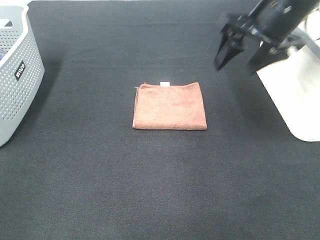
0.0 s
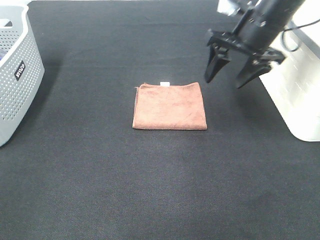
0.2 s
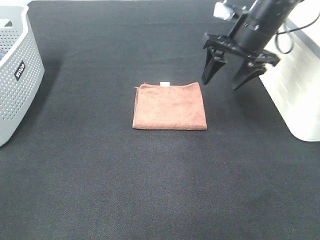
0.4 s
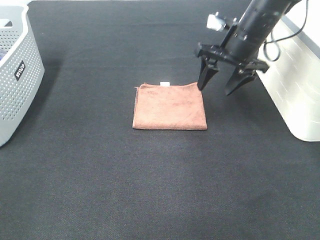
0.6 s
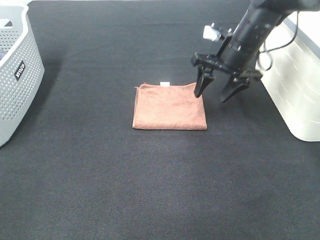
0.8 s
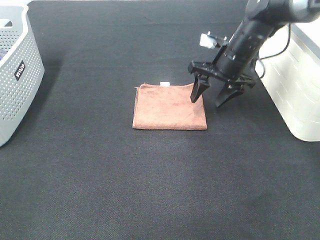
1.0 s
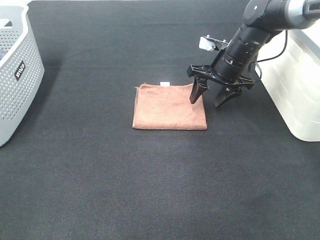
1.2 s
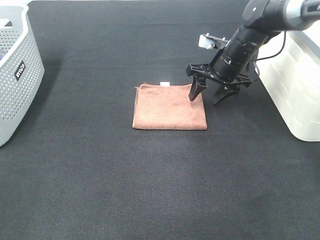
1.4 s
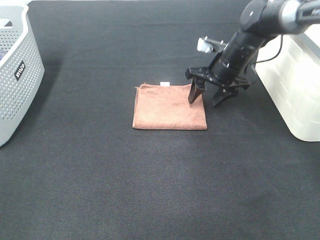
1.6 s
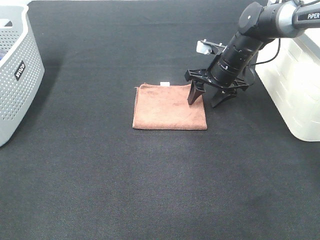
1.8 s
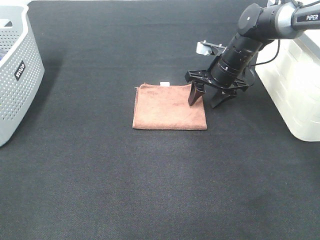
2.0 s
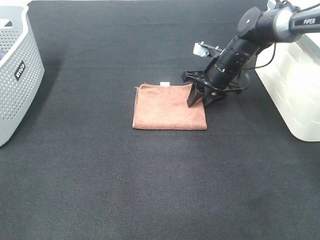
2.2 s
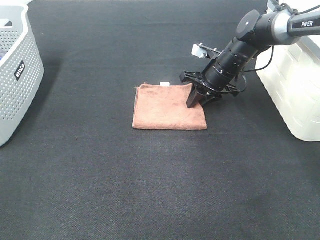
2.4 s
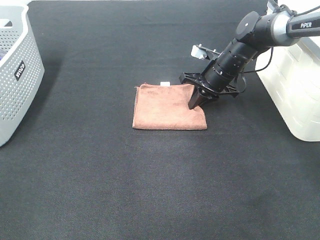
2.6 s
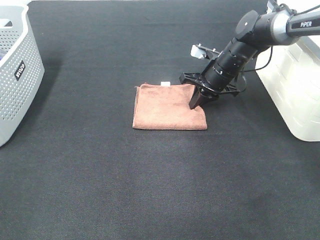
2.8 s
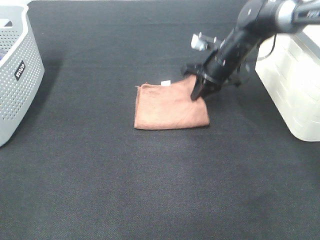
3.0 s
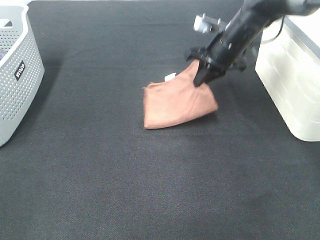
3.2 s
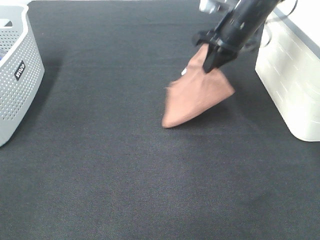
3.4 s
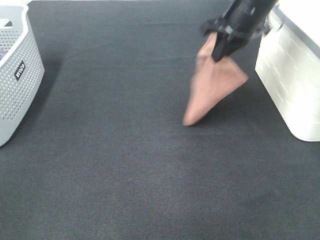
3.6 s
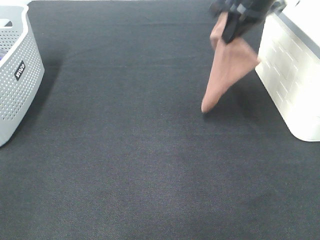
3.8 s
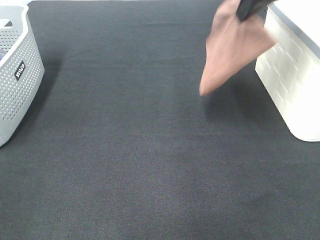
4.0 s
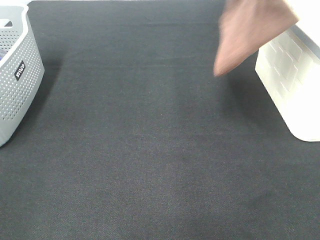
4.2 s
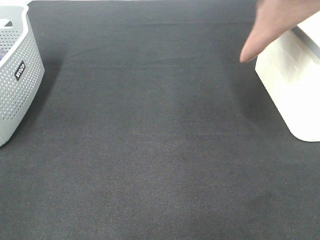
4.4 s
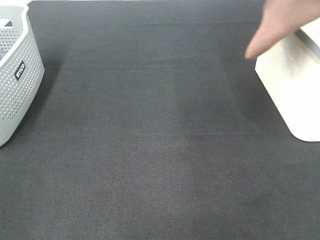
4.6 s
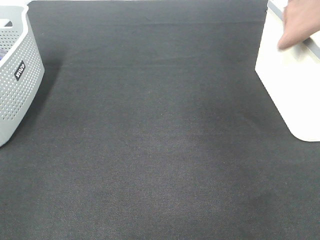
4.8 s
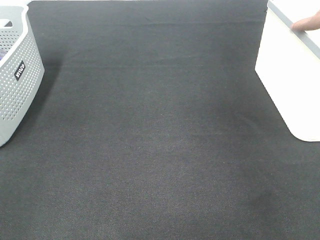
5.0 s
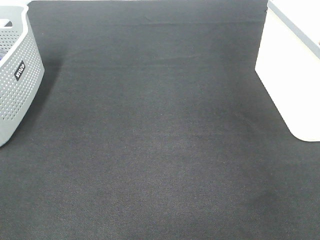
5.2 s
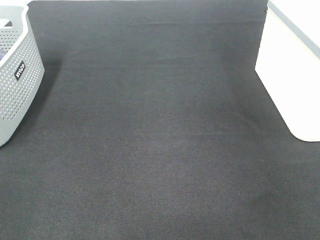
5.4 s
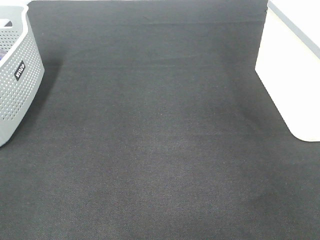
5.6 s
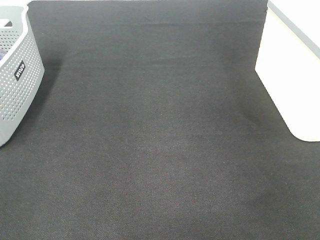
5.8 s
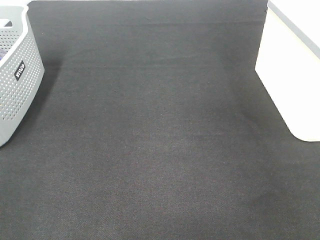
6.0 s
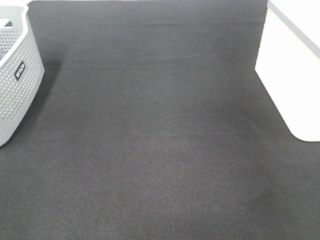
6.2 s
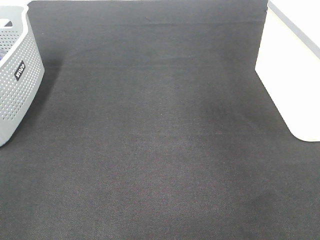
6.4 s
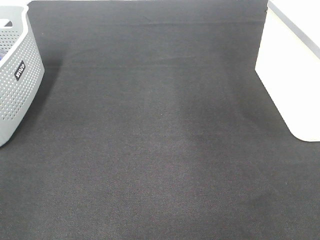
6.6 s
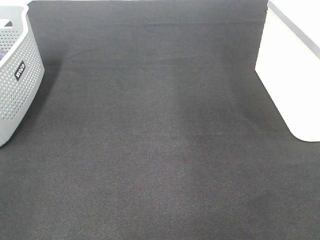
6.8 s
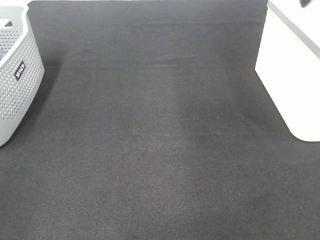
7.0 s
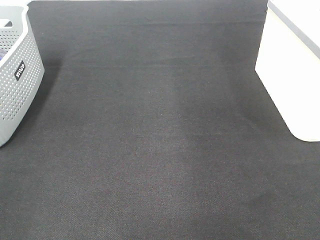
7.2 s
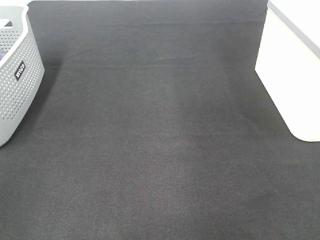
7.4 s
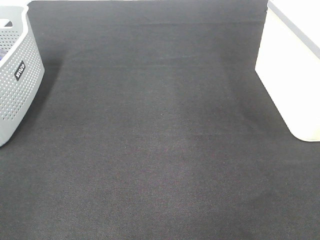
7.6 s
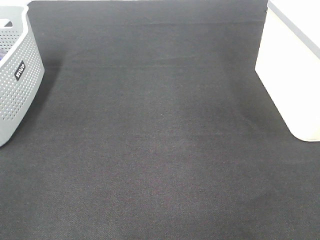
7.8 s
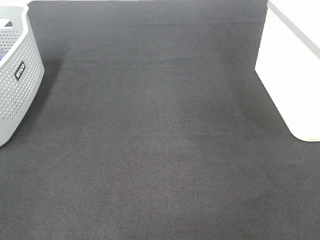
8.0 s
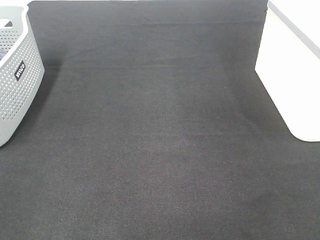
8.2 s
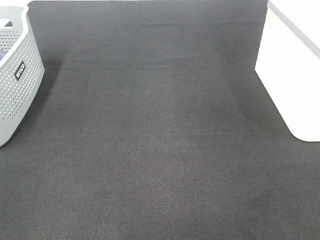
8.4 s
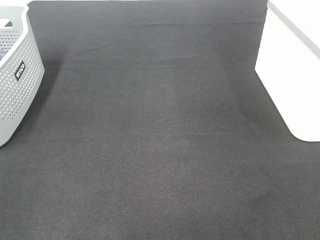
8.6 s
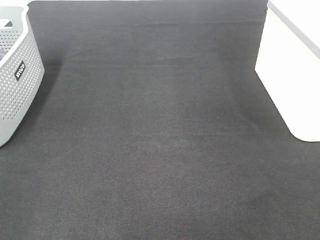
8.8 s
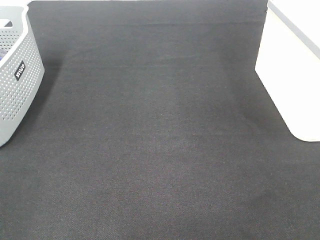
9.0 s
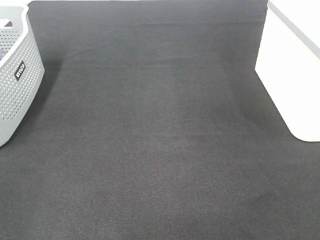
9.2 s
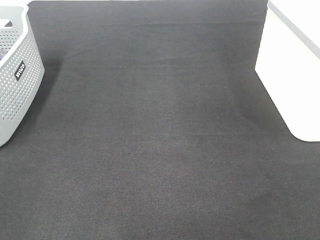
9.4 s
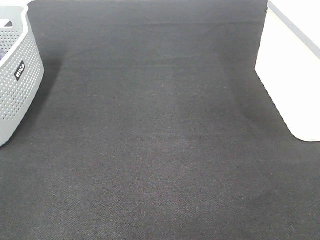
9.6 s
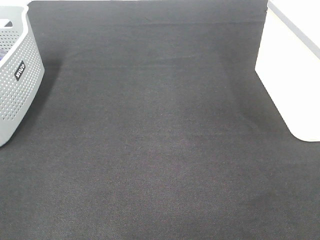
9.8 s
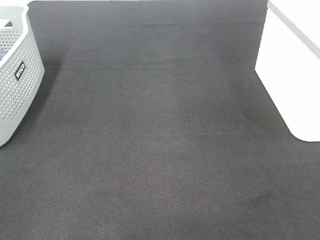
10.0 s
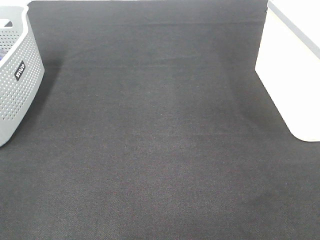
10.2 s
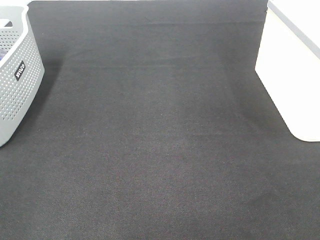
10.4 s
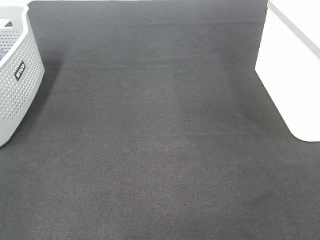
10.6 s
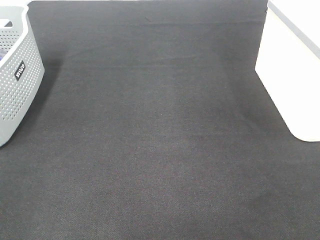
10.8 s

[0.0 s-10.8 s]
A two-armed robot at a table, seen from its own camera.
Step, 0.0 to 2.6 s: Right hand: grab the folded brown towel.
Step, 2.8 to 6.0 s: Right hand: place the brown towel in right basket.
0.0 to 1.6 s: The right gripper travels downward and forward by some 20 cm.
1.6 to 3.0 s: The right gripper closes.
3.0 to 4.6 s: The right gripper travels upward and to the right by roughly 30 cm.
4.6 to 6.2 s: The right gripper goes roughly 10 cm to the right, and opens its fingers.
9.2 to 10.8 s: Neither gripper changes place.

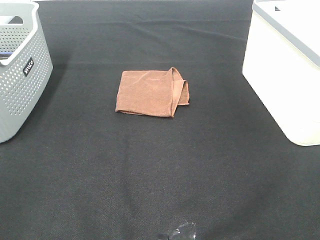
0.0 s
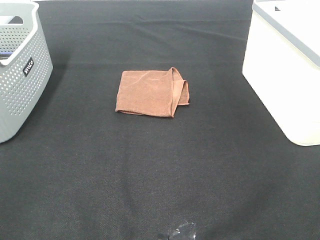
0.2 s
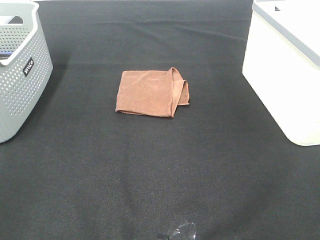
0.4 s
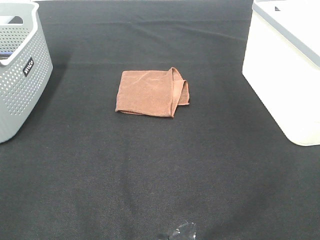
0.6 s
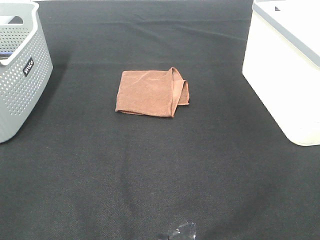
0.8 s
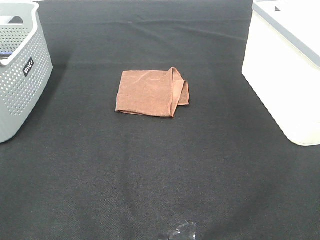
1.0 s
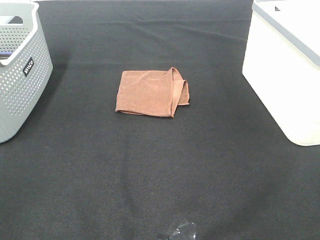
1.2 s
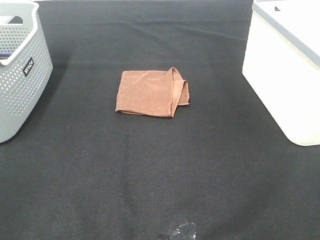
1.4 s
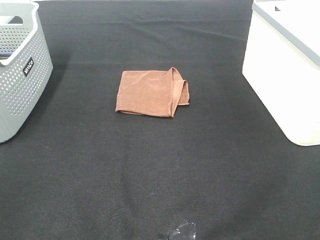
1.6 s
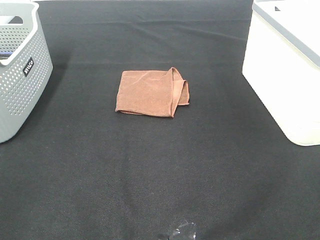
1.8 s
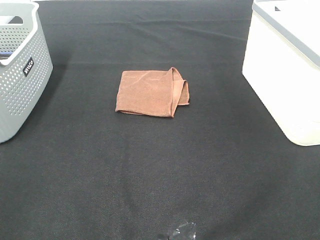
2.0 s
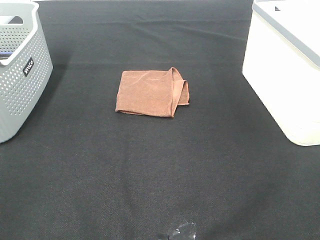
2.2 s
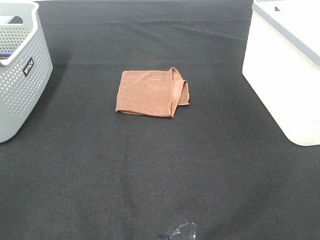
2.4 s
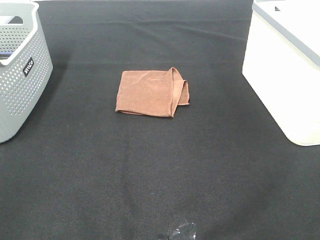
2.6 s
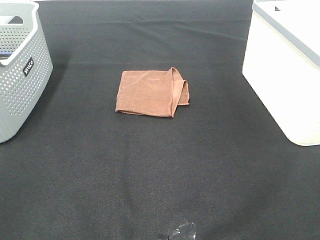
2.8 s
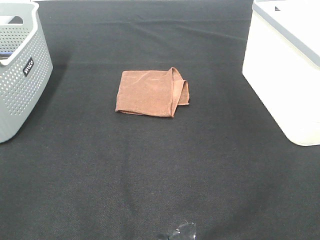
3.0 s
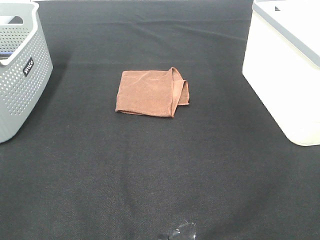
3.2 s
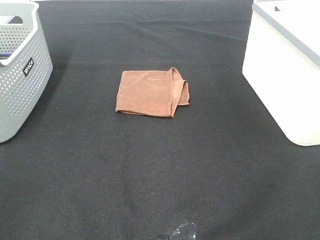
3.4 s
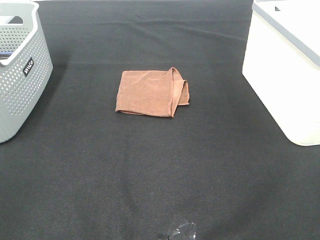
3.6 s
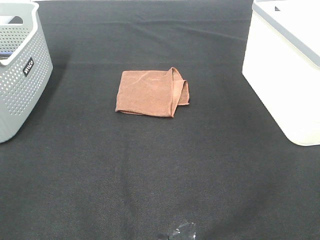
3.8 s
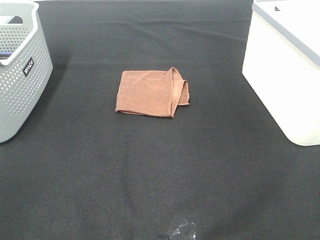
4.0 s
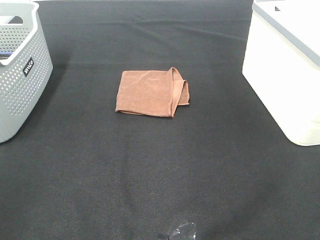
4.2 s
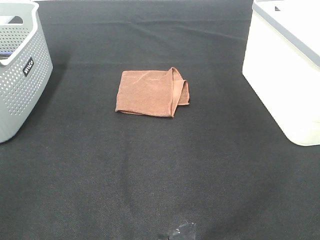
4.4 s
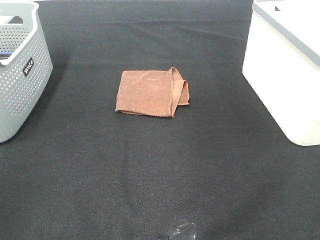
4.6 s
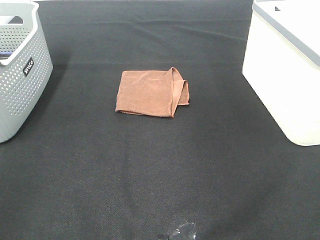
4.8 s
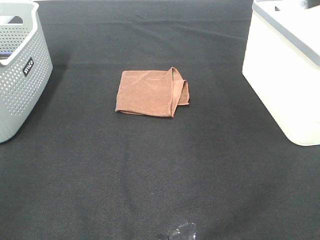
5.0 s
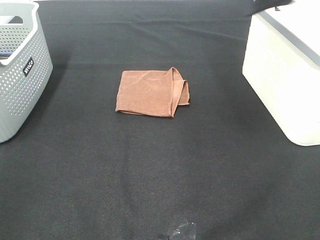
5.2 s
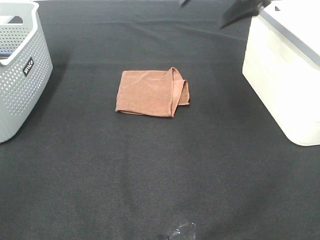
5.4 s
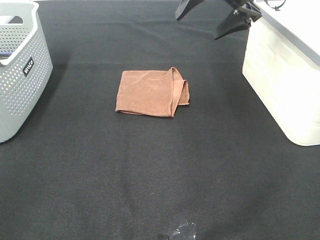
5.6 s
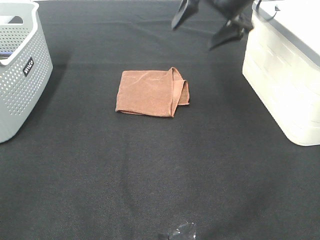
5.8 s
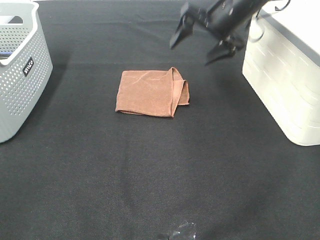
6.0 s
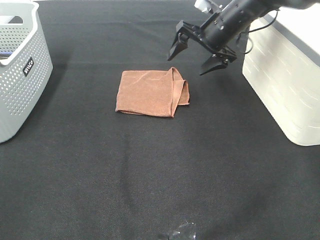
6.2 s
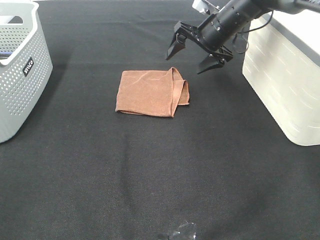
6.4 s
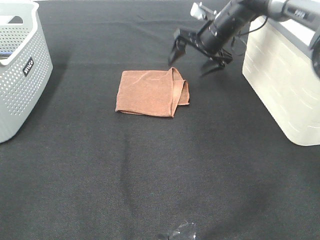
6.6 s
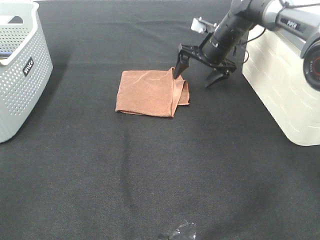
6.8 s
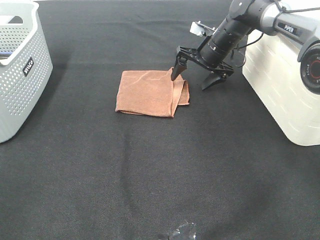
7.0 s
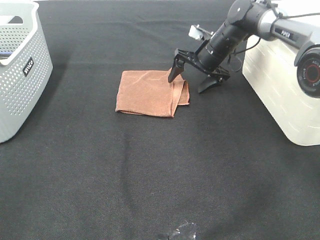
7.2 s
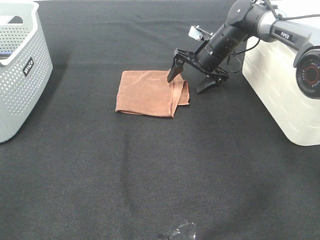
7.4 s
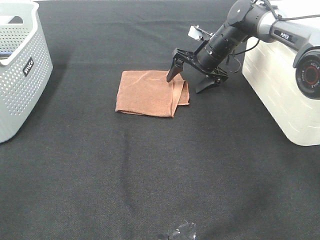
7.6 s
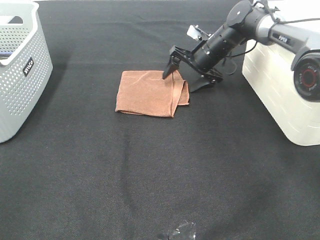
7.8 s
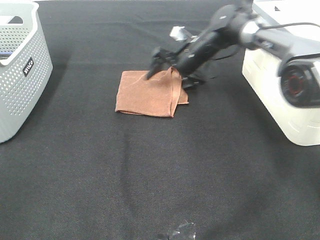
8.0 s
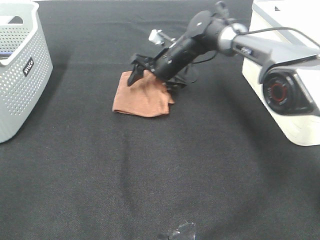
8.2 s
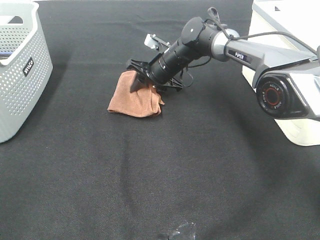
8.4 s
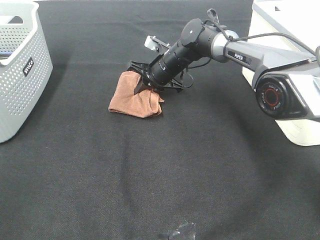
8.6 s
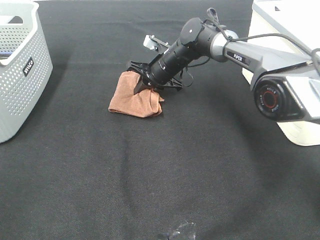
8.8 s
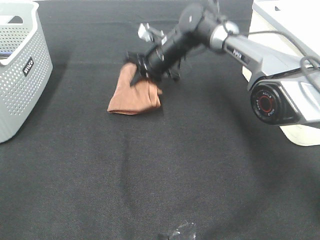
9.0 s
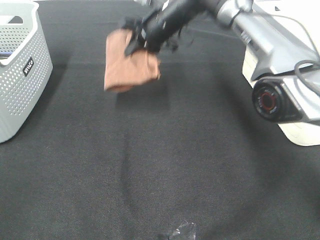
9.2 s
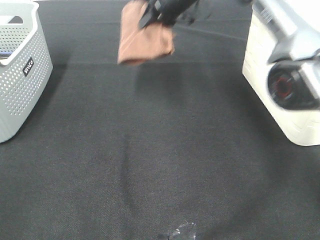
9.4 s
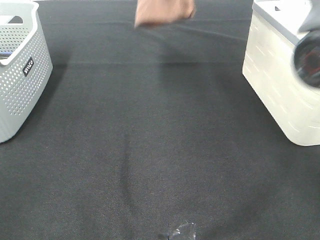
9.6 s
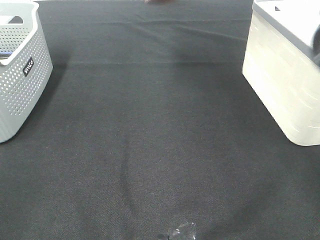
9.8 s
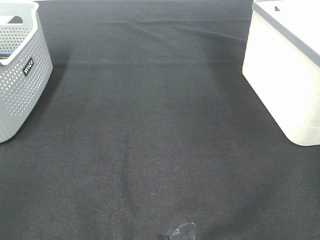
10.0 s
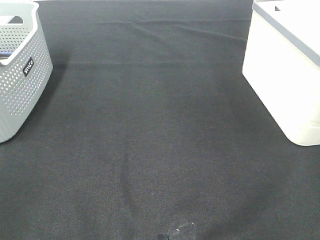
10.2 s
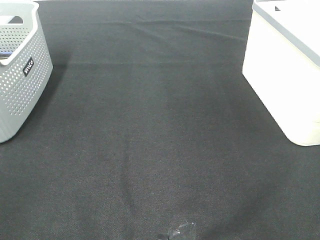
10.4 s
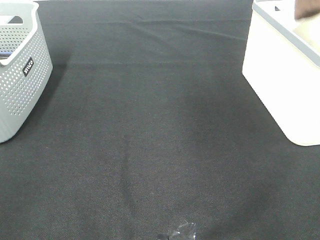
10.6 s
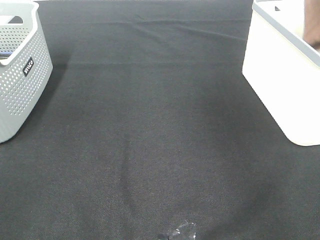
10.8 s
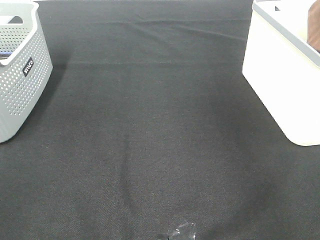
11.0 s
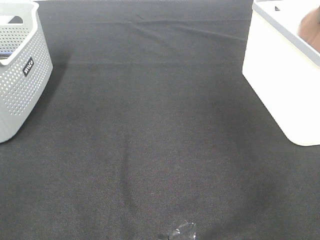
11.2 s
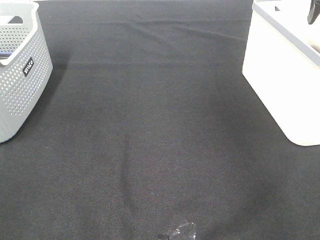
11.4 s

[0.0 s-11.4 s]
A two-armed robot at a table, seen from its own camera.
Step, 0.0 to 8.4 s: Right hand: grab the folded brown towel.
Step, 8.6 to 11.2 s: Right hand: place the brown towel in right basket.
0.0 to 2.8 s: Both grippers stay about where they are.
4.2 to 5.6 s: The right gripper travels forward and to the left by approximately 35 cm.
5.6 to 7.2 s: The right gripper heads downward and forward, covering about 20 cm.
7.2 to 8.6 s: The right gripper heads to the left, covering some 10 cm, and closes up.
8.6 to 10.0 s: The right gripper goes roughly 35 cm upward.
10.0 to 11.4 s: The right gripper heads to the right and downward, covering some 25 cm, and opens up.
